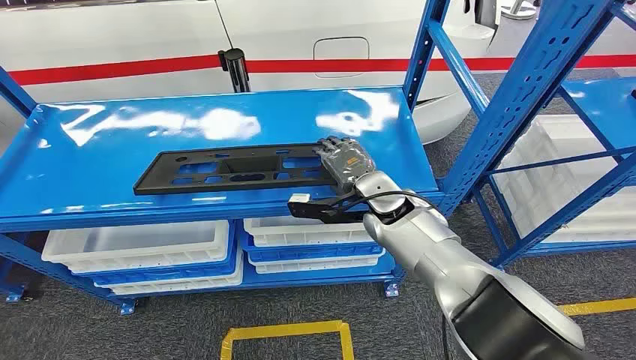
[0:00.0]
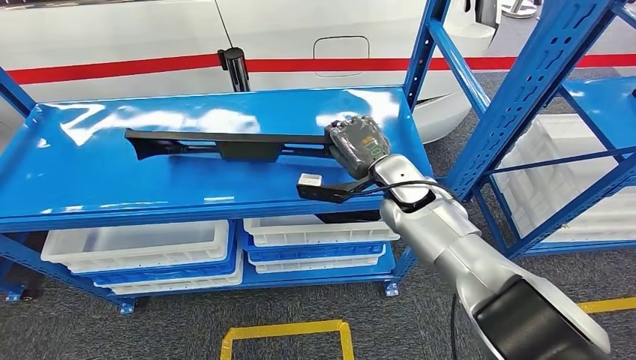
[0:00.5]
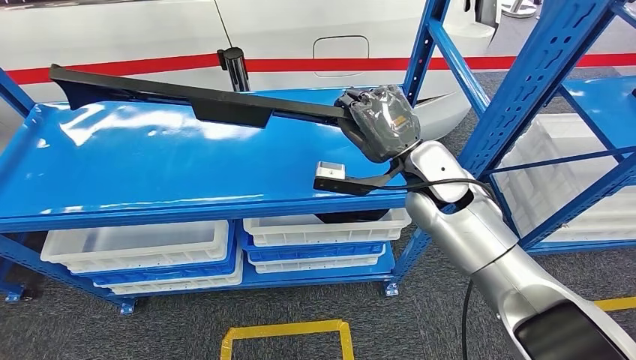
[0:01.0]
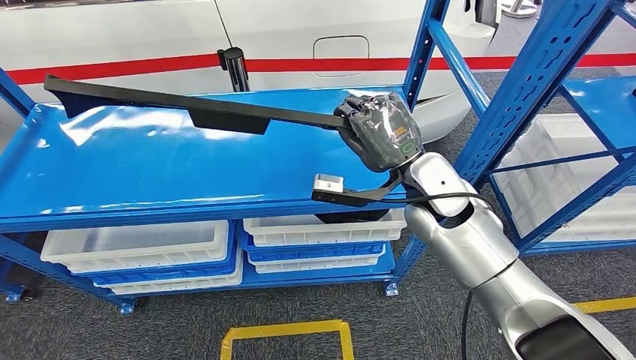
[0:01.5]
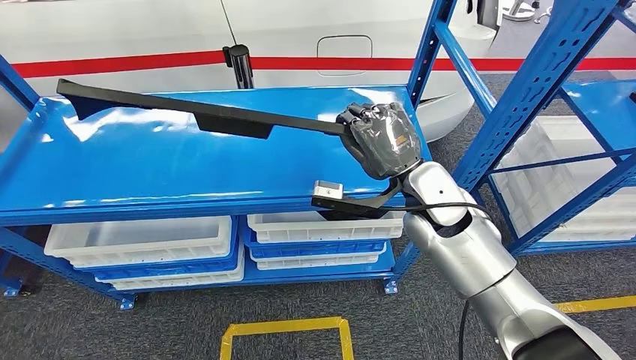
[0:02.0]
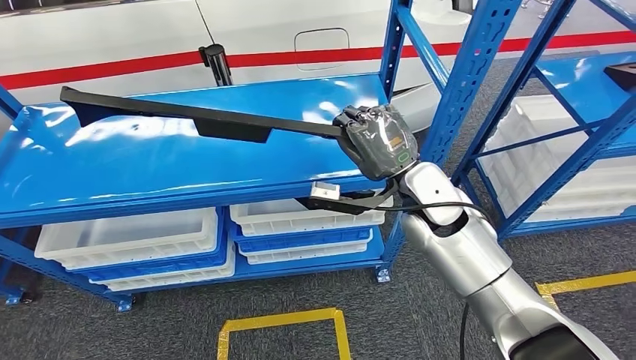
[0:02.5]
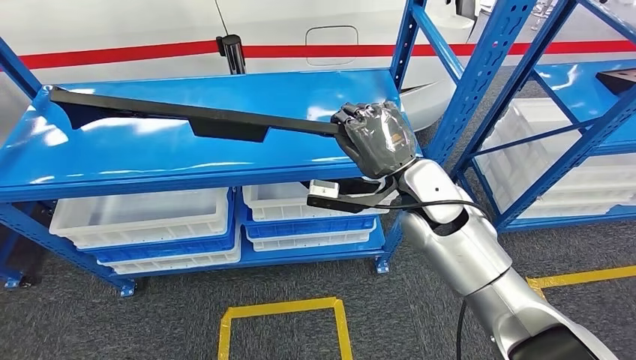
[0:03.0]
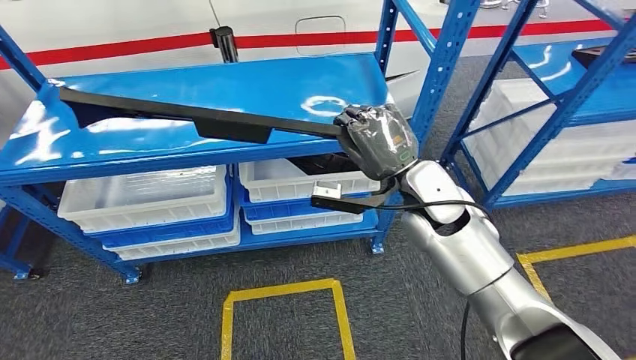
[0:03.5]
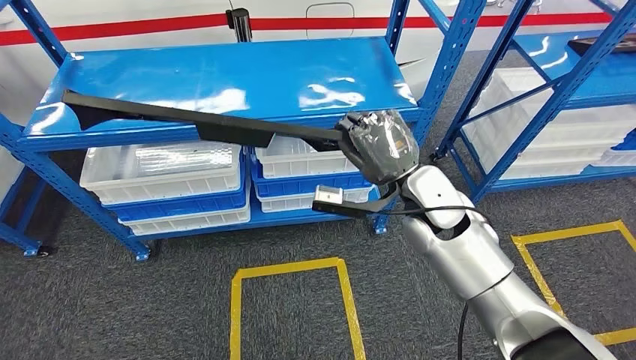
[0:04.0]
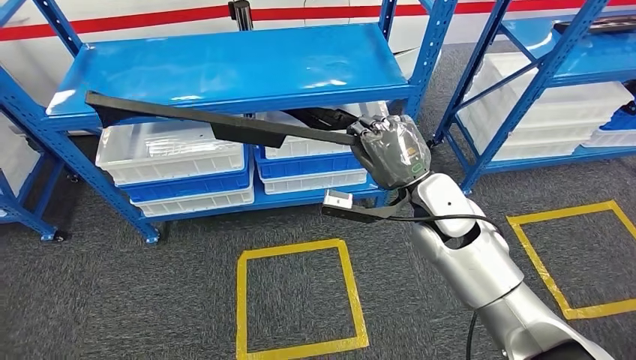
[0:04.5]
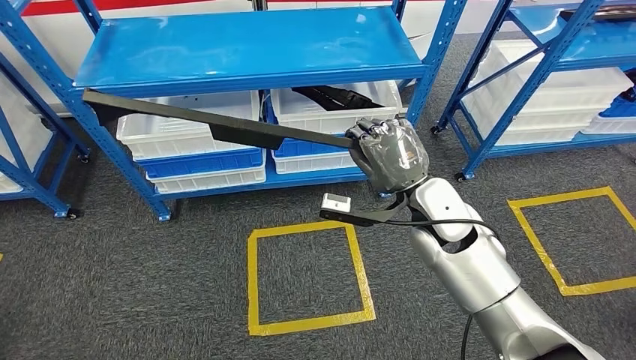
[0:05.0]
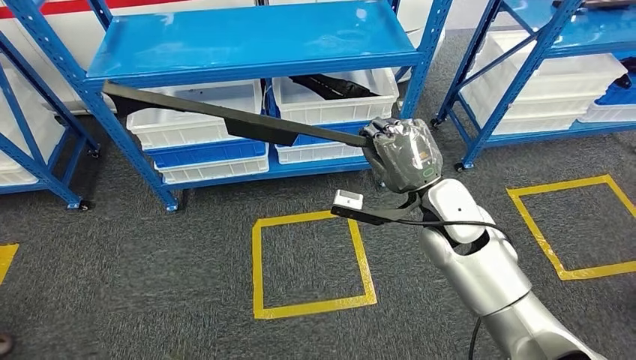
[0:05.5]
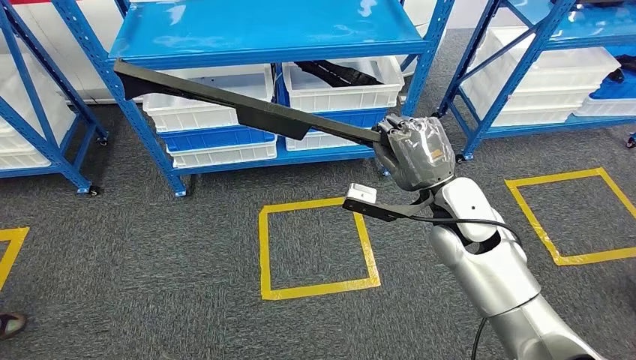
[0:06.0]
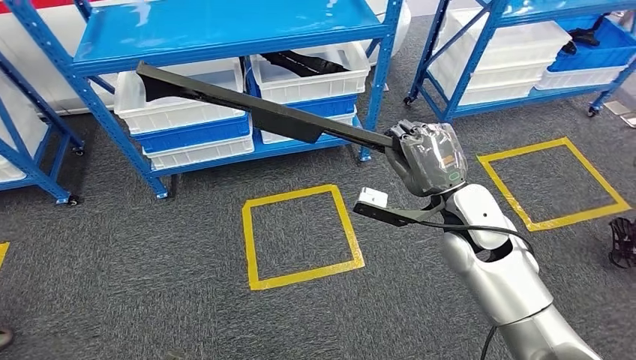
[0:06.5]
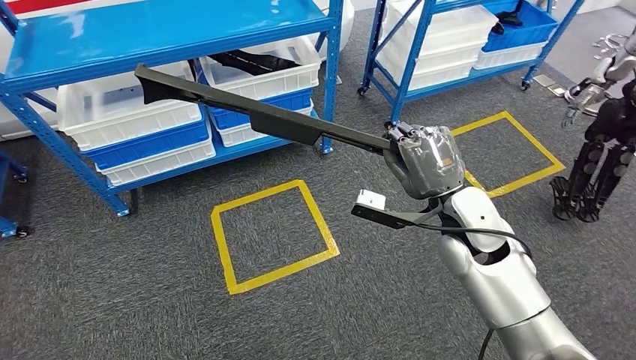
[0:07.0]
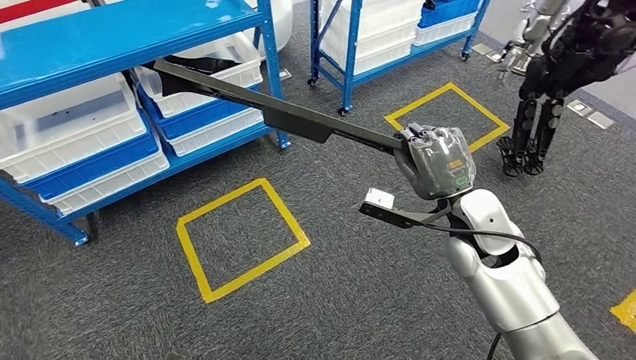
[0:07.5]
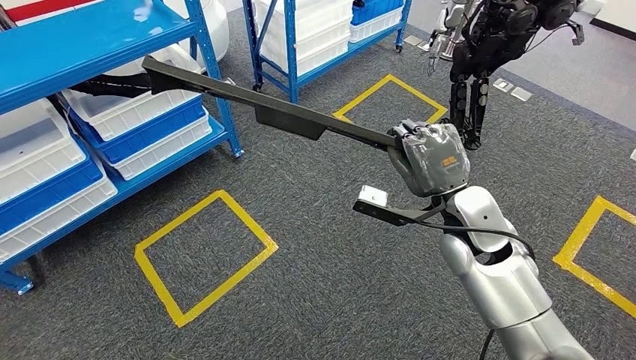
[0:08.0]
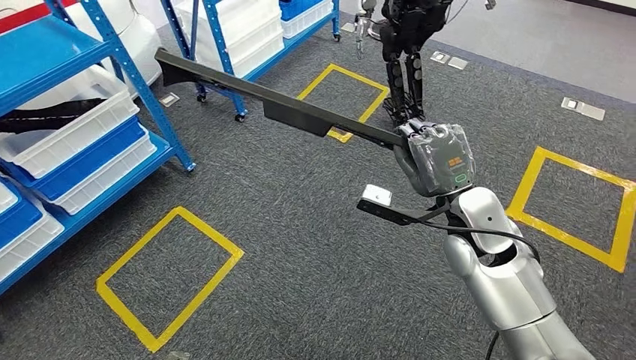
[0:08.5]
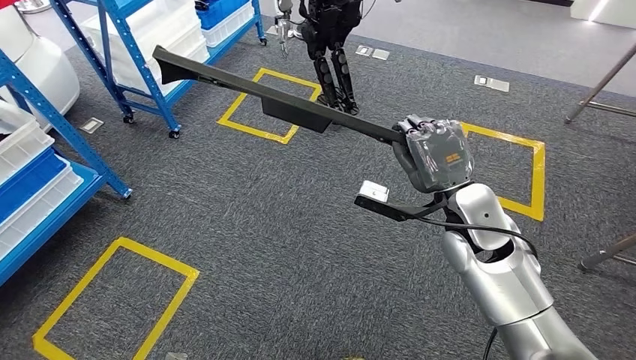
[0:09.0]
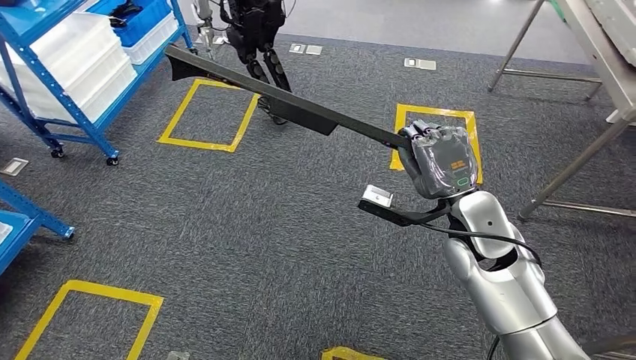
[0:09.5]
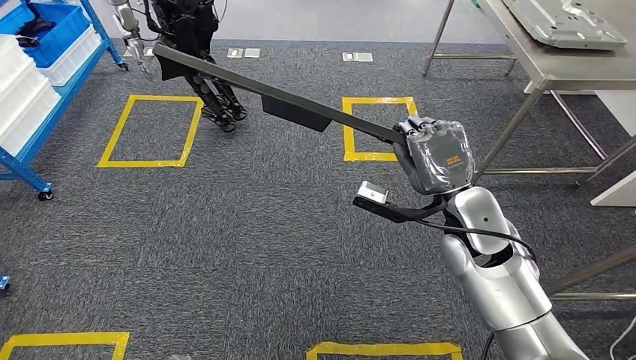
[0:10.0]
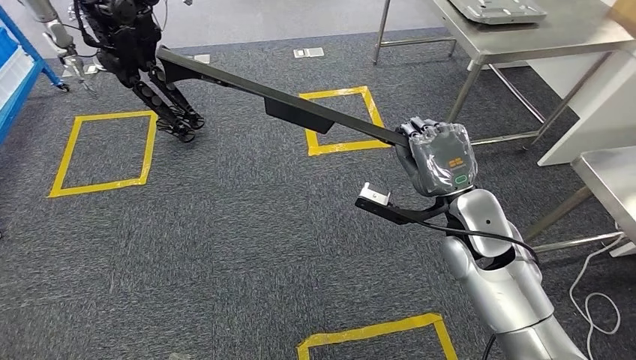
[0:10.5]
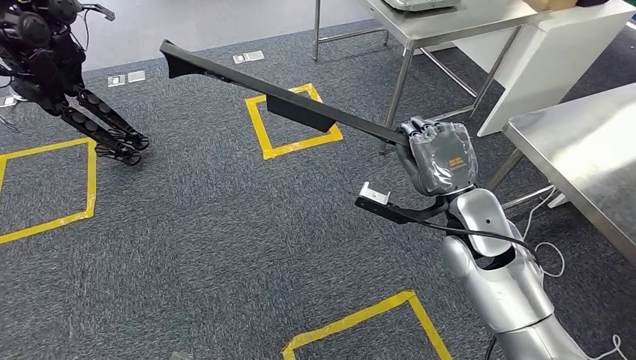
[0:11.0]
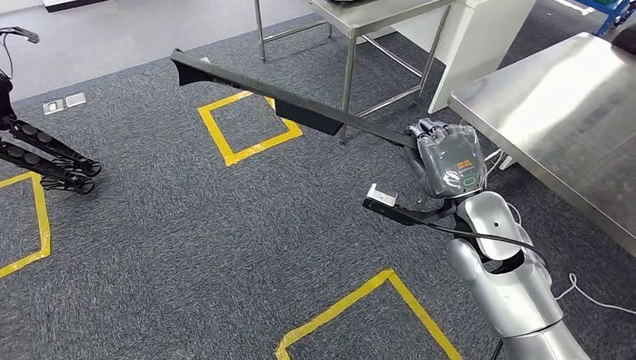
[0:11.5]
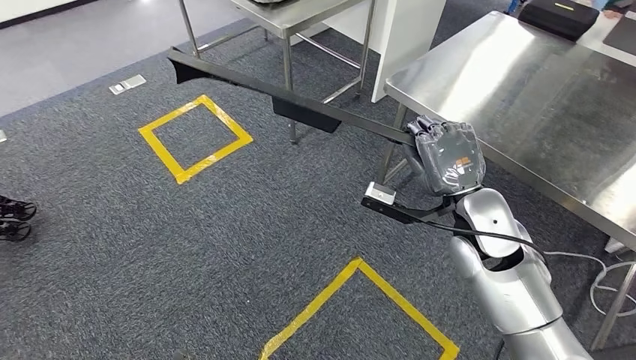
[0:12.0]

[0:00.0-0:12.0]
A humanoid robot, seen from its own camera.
Step, 0:00.0 to 0:04.0: Pick up the large material from the shelf.
Step, 0:04.5 to 0:12.0: Move the large material to the workbench.

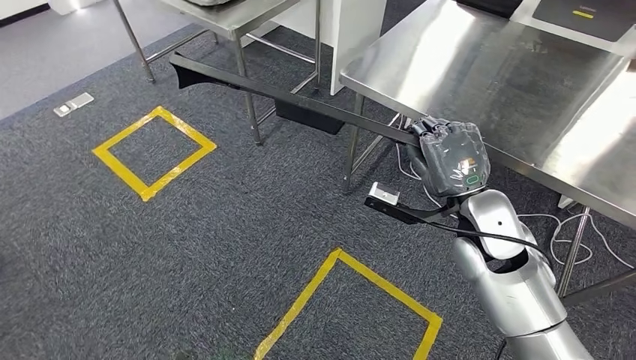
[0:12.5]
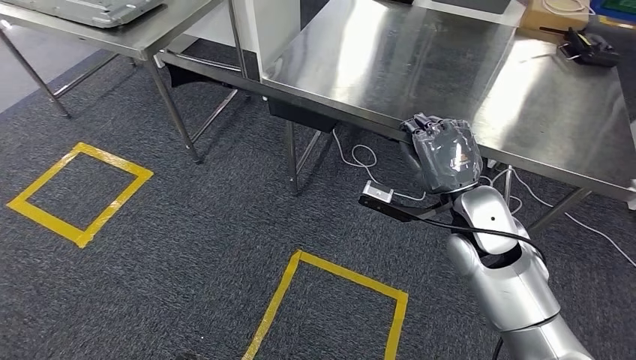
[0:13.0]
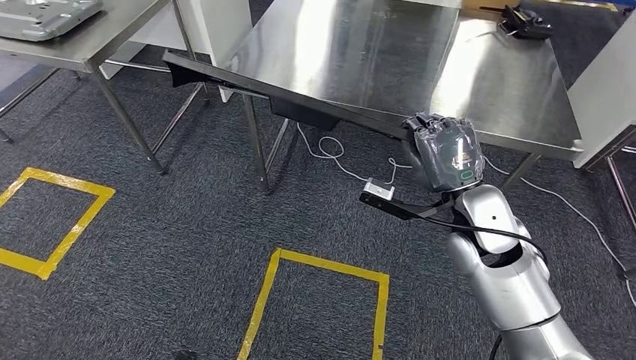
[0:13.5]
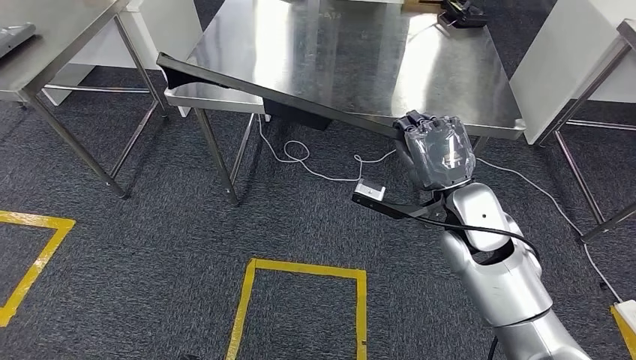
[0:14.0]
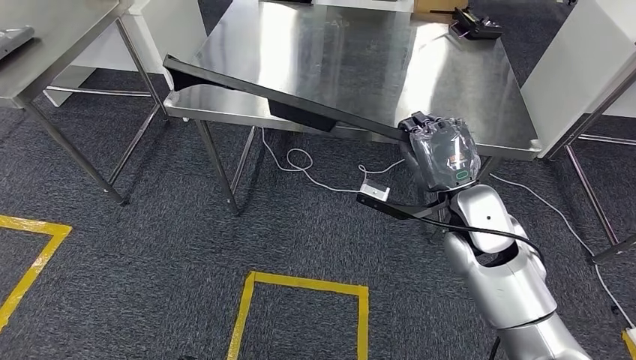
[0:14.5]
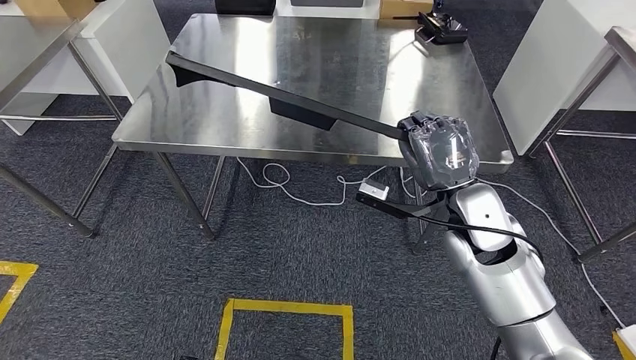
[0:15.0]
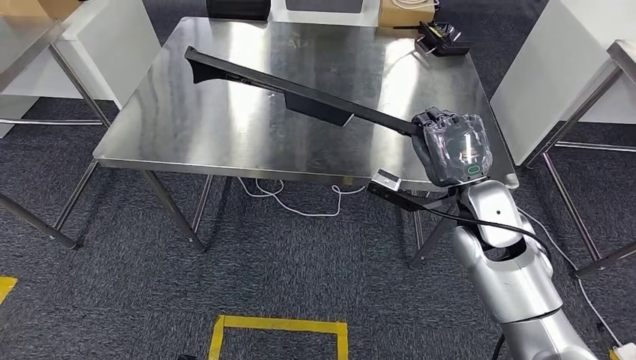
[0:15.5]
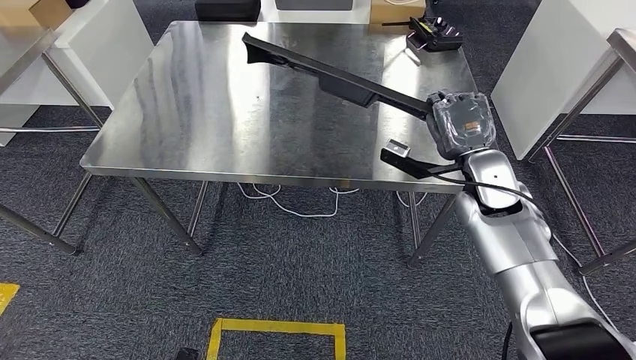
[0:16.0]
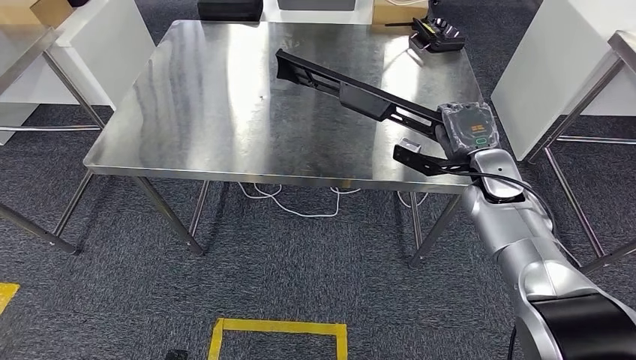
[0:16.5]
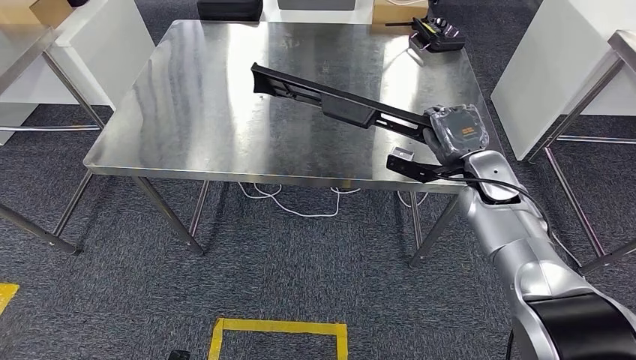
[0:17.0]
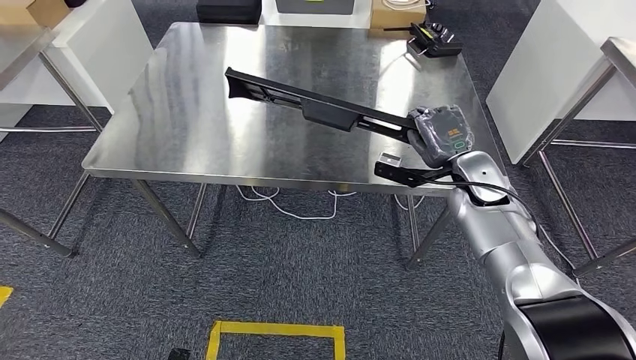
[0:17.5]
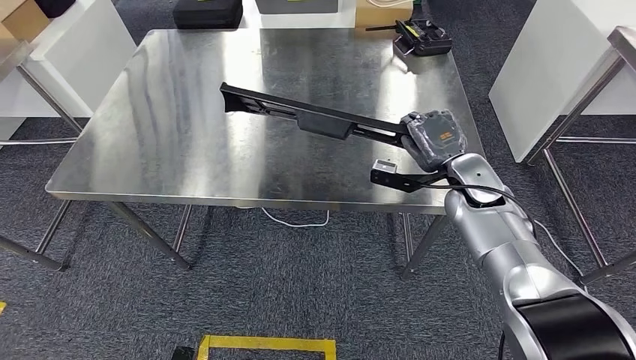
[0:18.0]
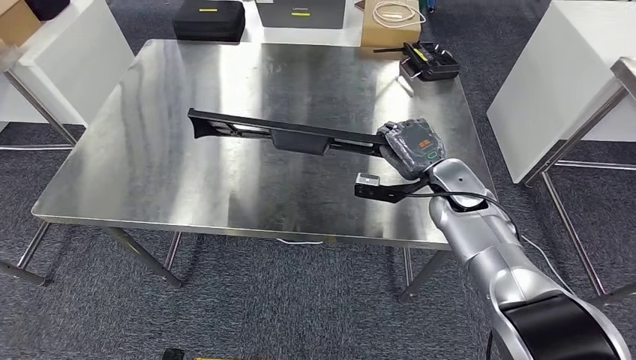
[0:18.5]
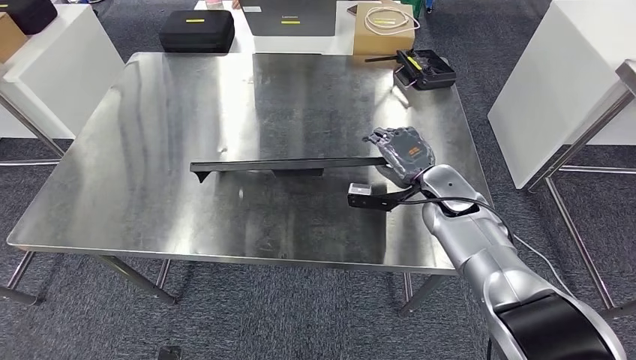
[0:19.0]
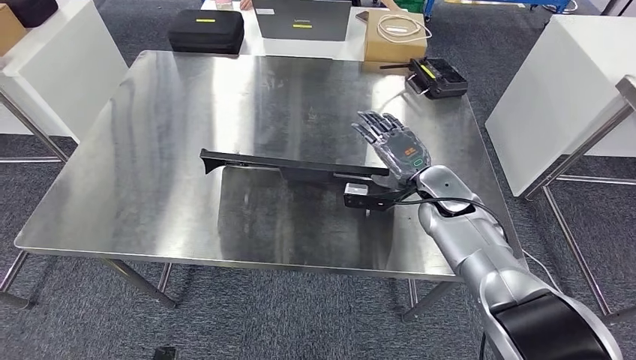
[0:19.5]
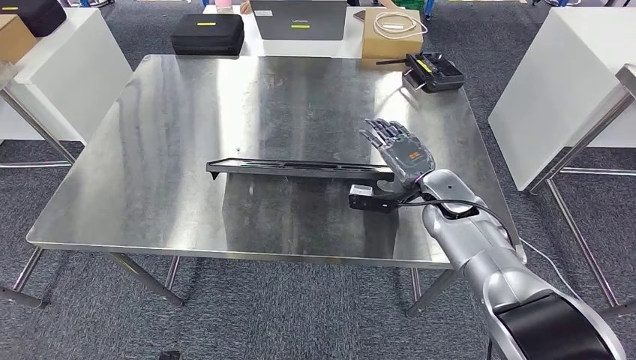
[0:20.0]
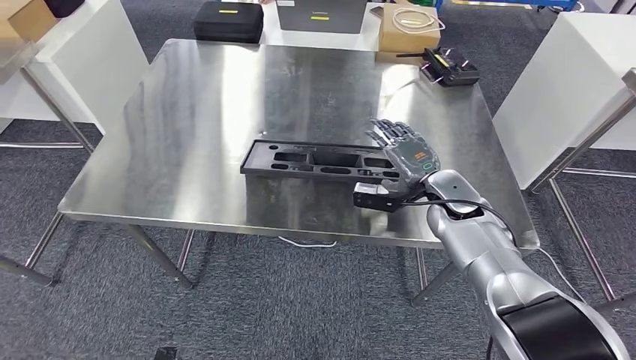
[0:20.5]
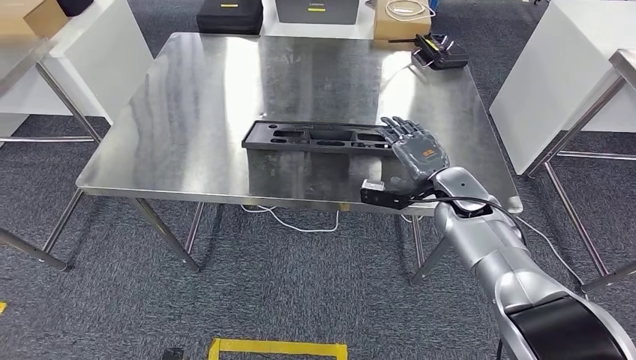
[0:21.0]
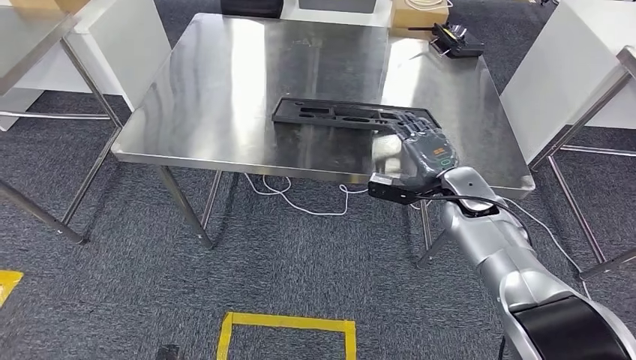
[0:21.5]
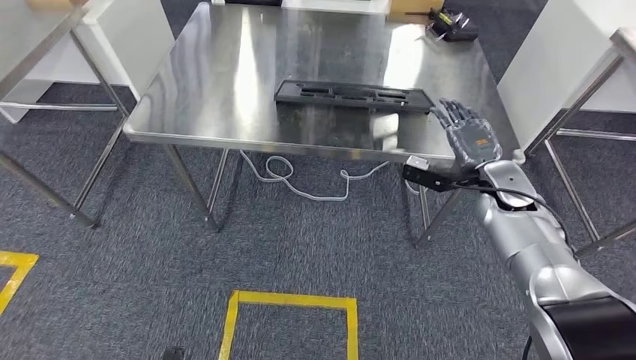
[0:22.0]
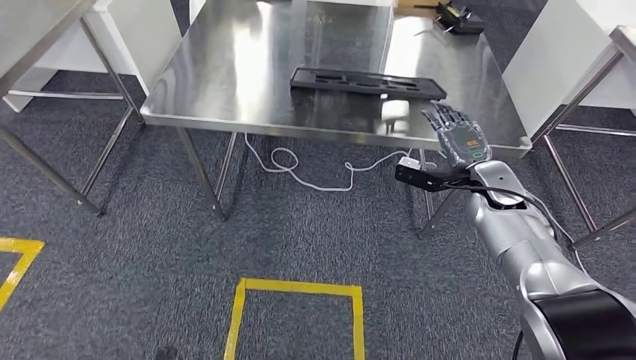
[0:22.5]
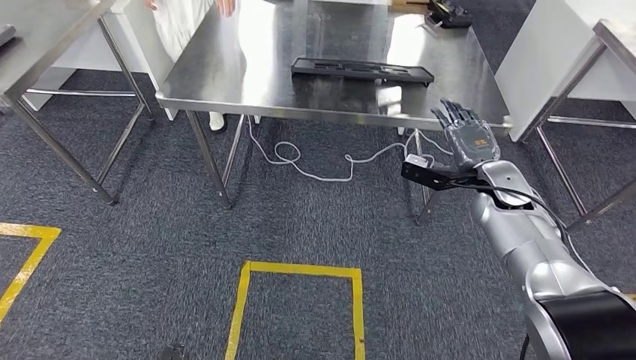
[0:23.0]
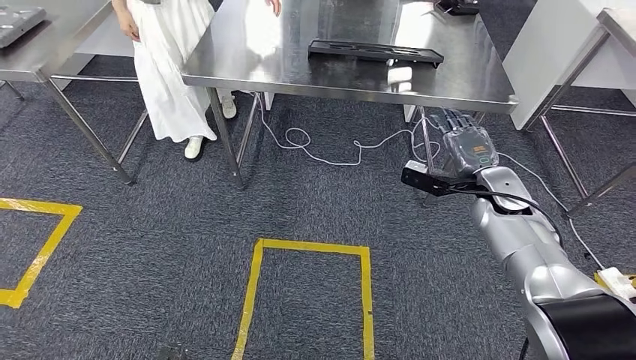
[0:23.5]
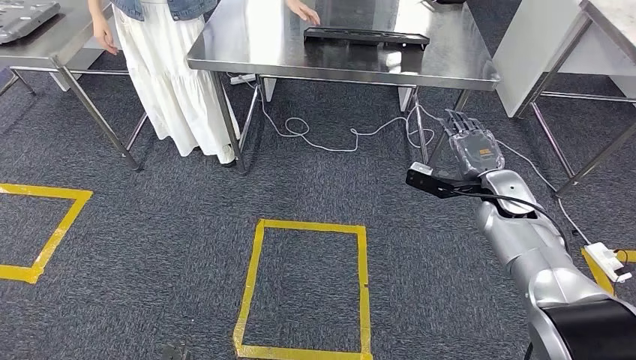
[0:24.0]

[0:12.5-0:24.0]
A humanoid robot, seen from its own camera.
Step, 0:12.5 to 0:21.0: Insert the large material into the corresponding slot on the workbench.
